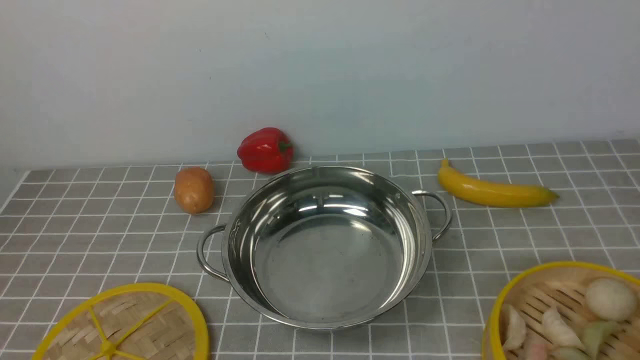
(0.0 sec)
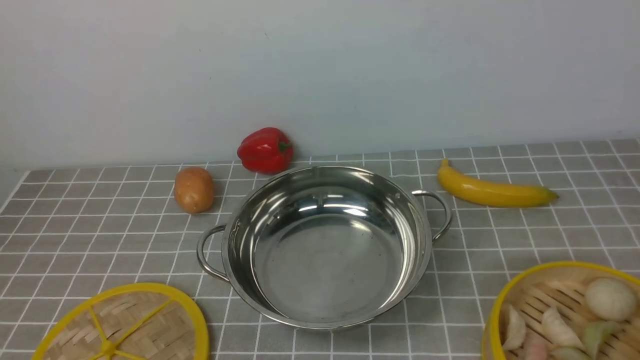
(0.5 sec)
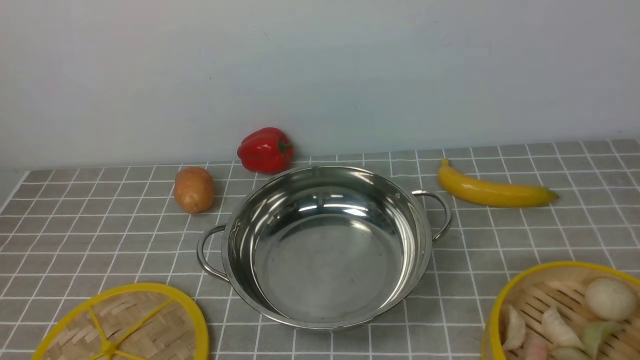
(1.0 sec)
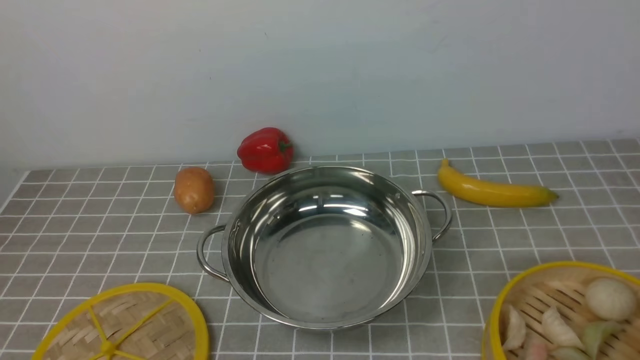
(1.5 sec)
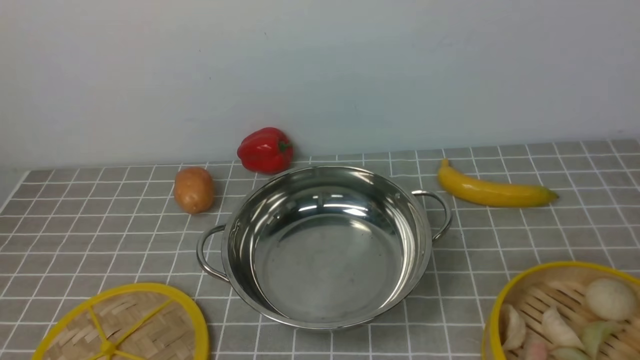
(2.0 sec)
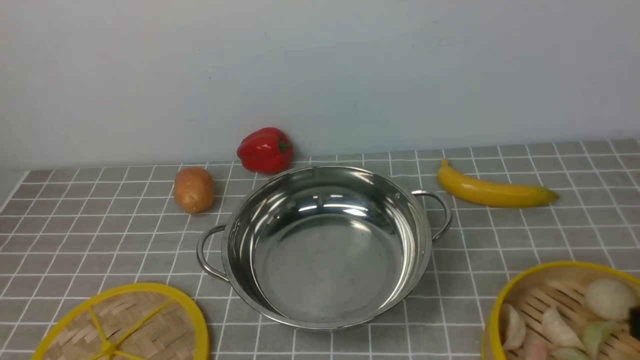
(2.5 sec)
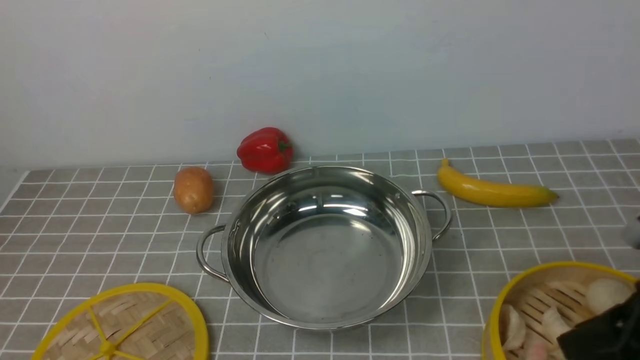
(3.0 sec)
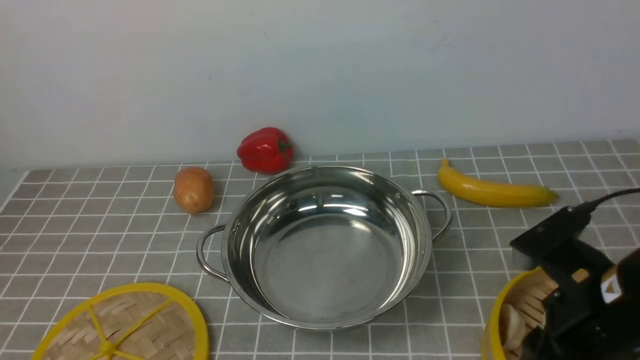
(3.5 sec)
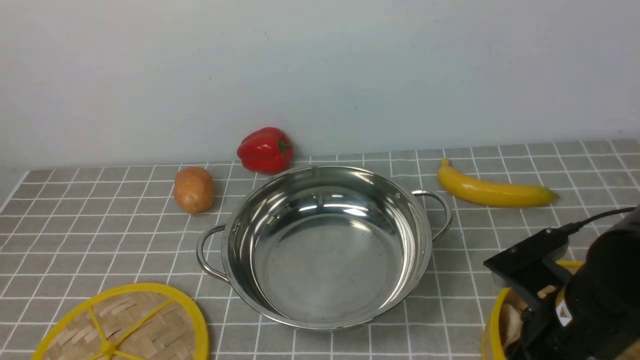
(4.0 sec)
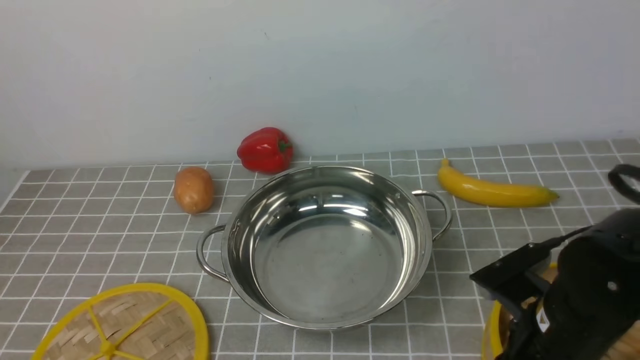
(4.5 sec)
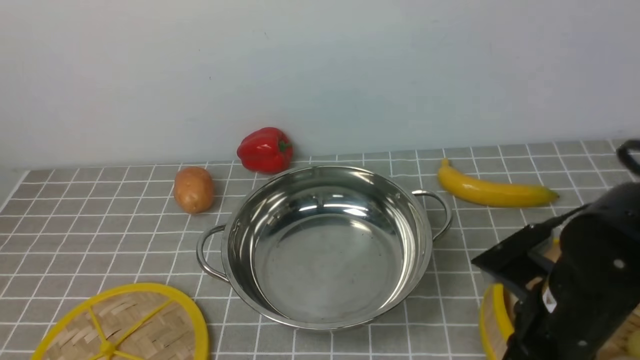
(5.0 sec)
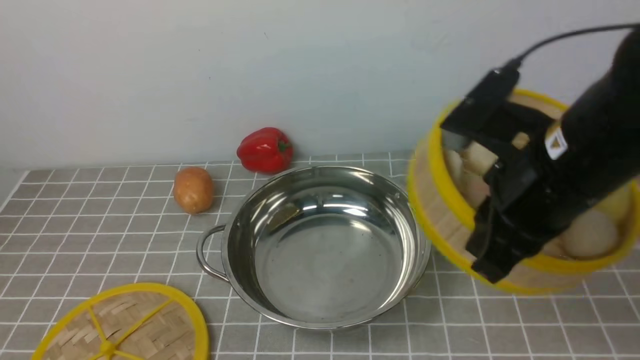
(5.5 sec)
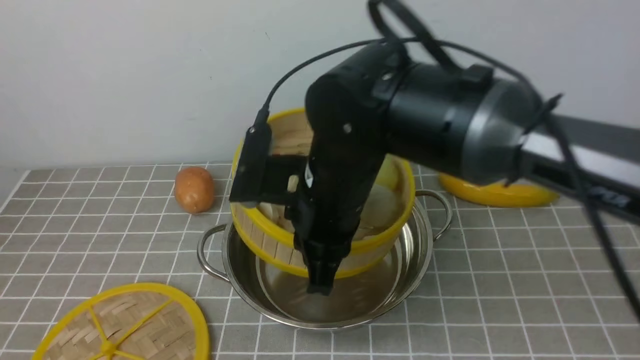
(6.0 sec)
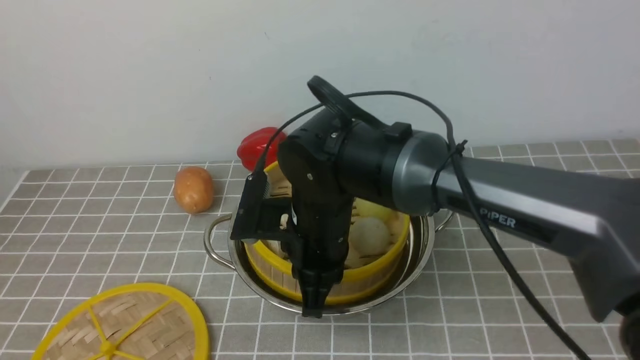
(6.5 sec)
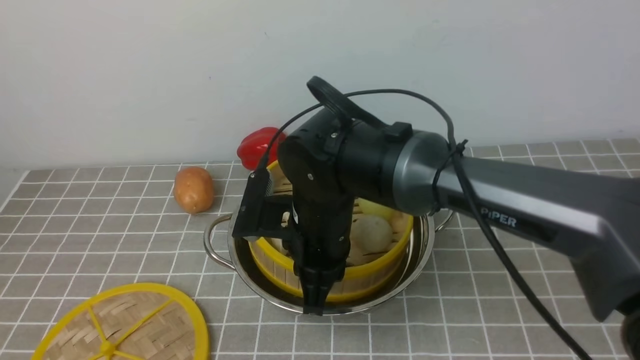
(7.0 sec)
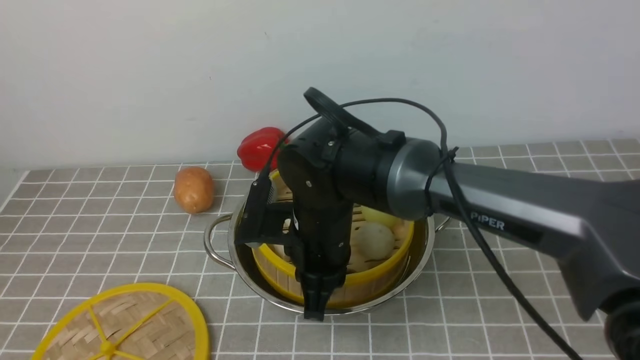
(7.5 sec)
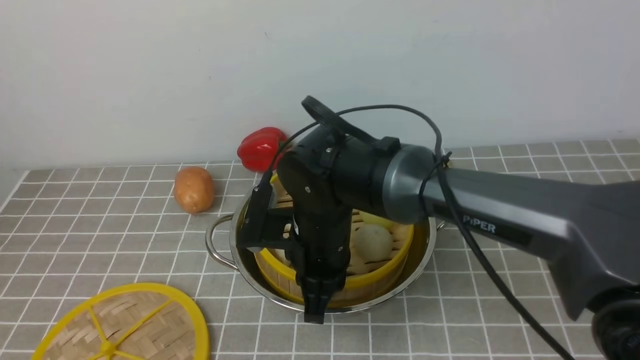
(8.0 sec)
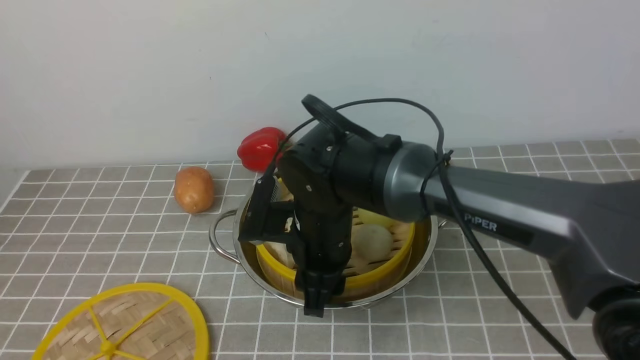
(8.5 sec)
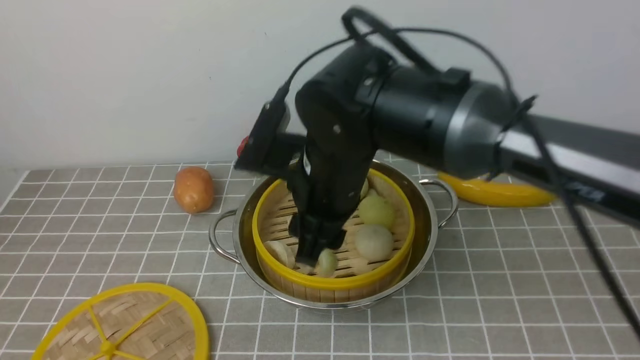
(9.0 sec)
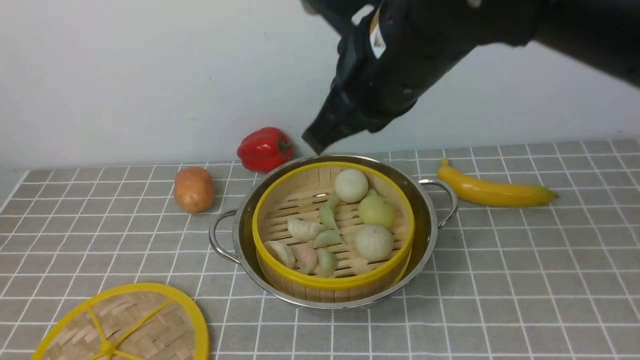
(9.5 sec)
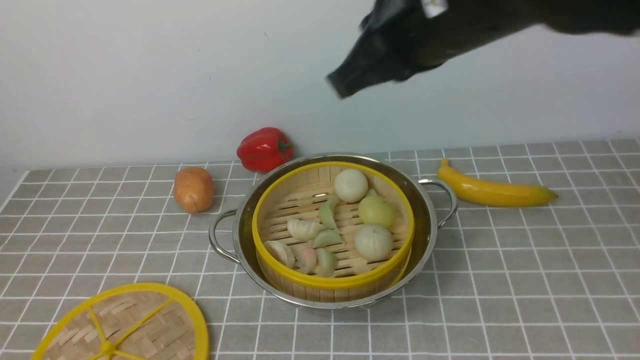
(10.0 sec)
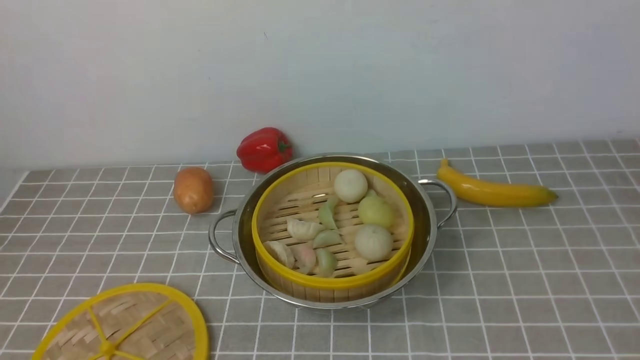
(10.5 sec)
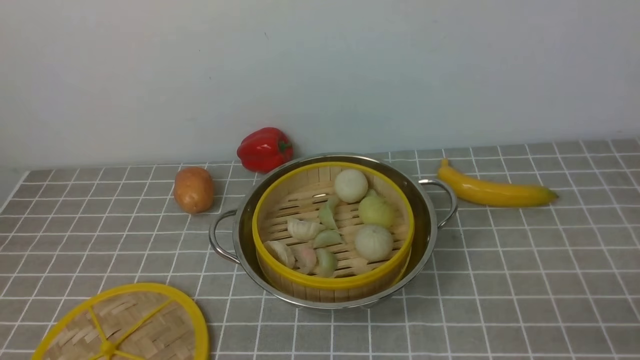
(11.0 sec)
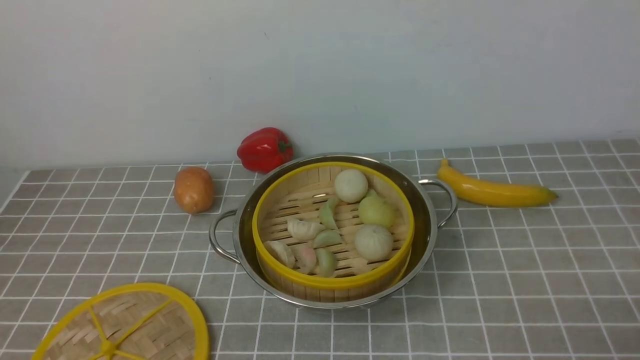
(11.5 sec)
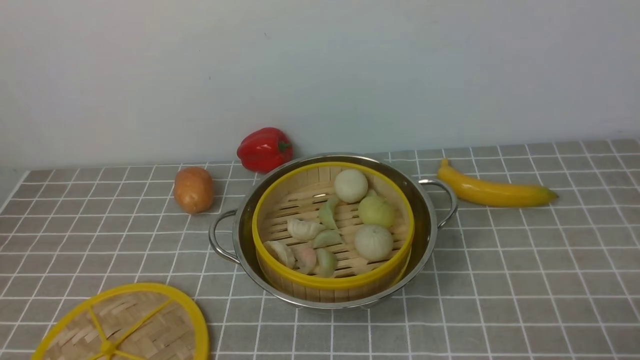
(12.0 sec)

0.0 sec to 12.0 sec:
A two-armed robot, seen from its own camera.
Task of the whole recording: place the steamer in the pot on the grey tablecloth, and put the lid on the steamer.
Step, 0.0 sec to 5.0 sec: use the right arm to lift the steamer closest to it.
Step, 5.5 sec to 8.5 sec: use the right arm to put the steamer into the iron steamer pot in the middle.
2.0 sec to 4.0 sec: The right gripper travels forward, to the left and downward by some 20 cm.
4.0 sec to 6.0 sec: The right gripper goes approximately 20 cm to the left, forward and upward, and closes up.
6.0 sec to 8.0 sec: The right gripper moves downward, some 10 cm.
8.0 sec to 10.0 sec: The right gripper travels upward and to the right by roughly 25 cm, and opens, then closes once more.
10.0 sec to 12.0 sec: The right gripper heads to the right, downward and backward, covering some 40 cm, and opens up.

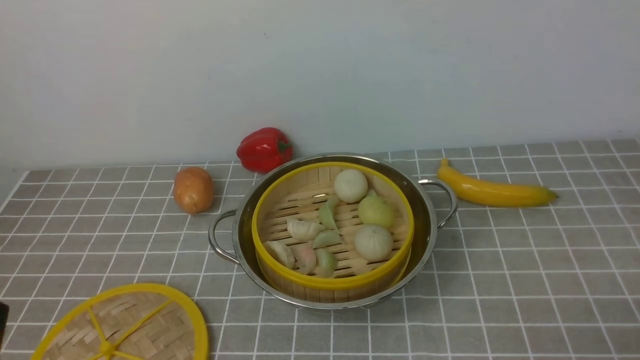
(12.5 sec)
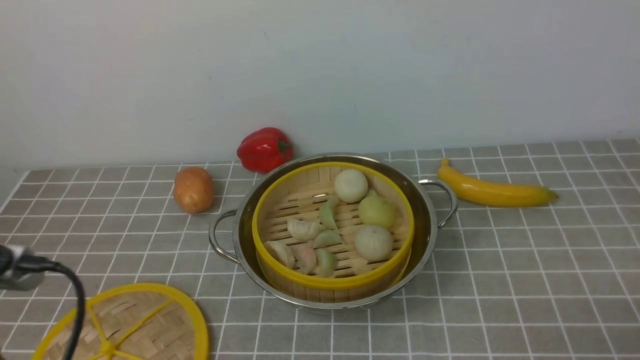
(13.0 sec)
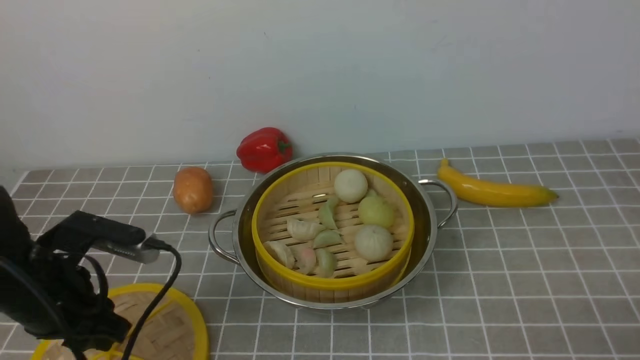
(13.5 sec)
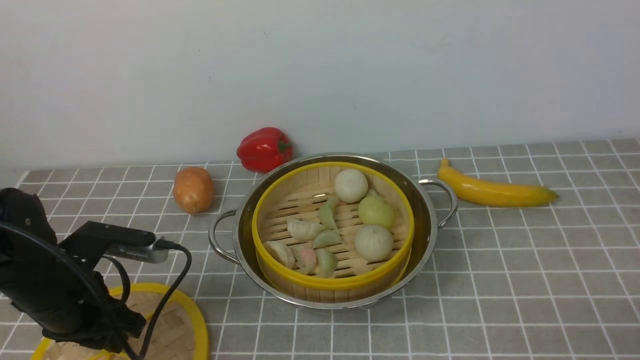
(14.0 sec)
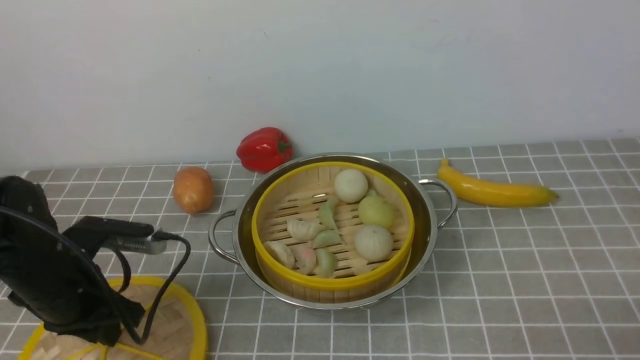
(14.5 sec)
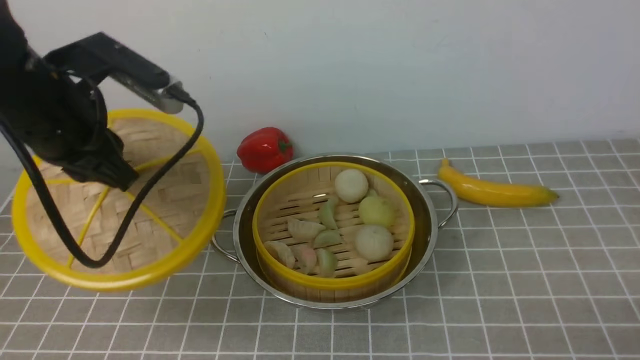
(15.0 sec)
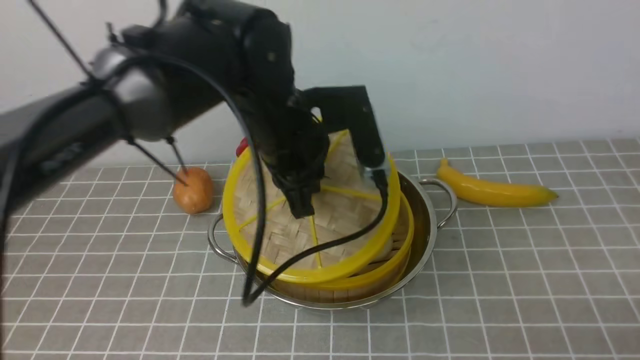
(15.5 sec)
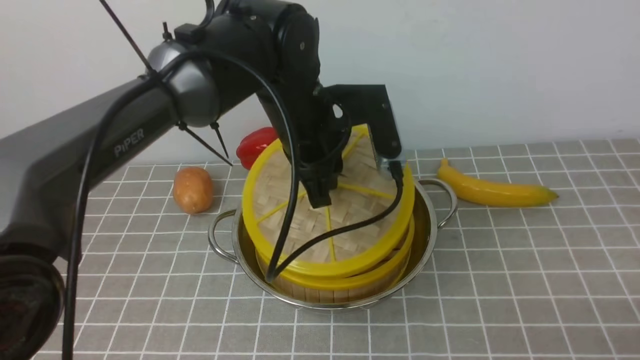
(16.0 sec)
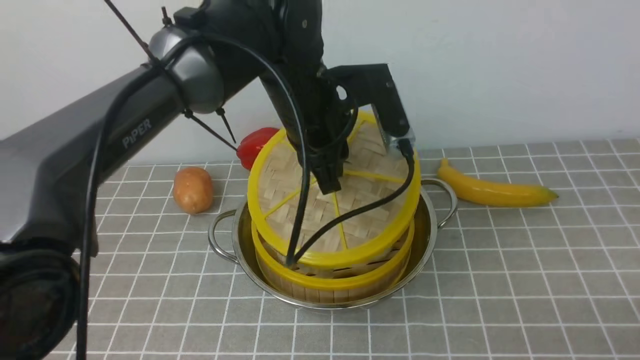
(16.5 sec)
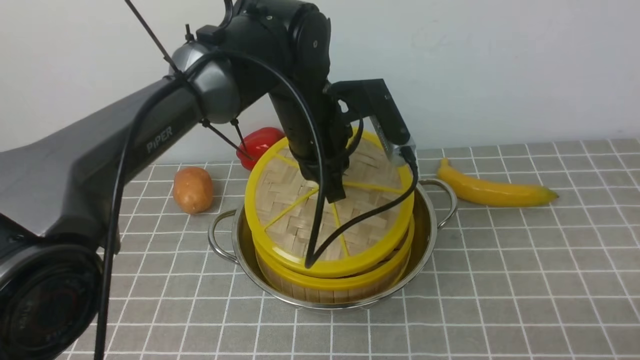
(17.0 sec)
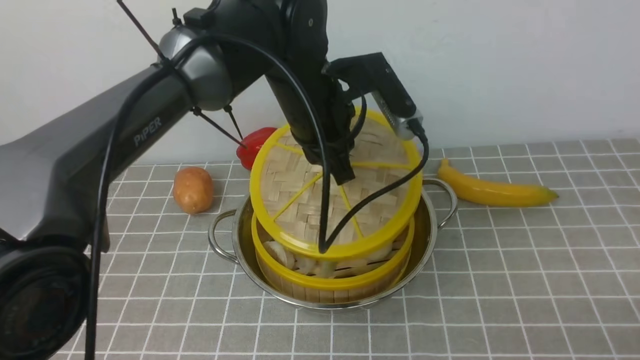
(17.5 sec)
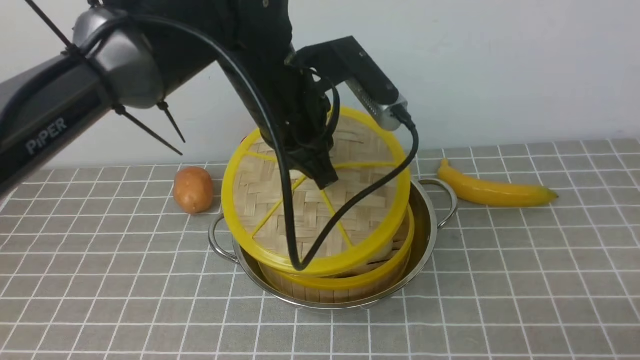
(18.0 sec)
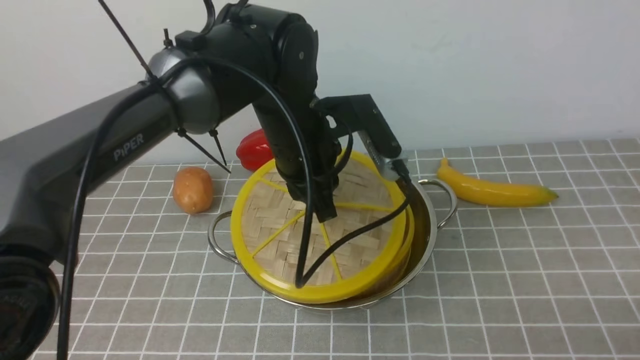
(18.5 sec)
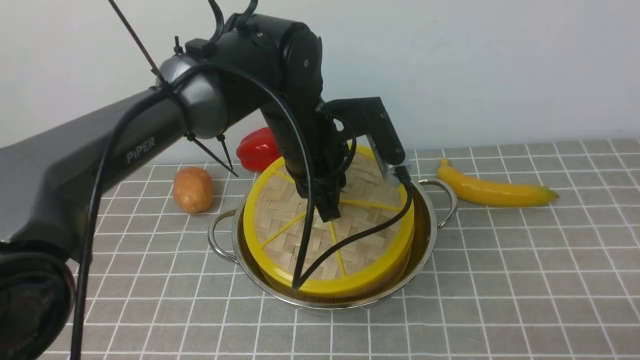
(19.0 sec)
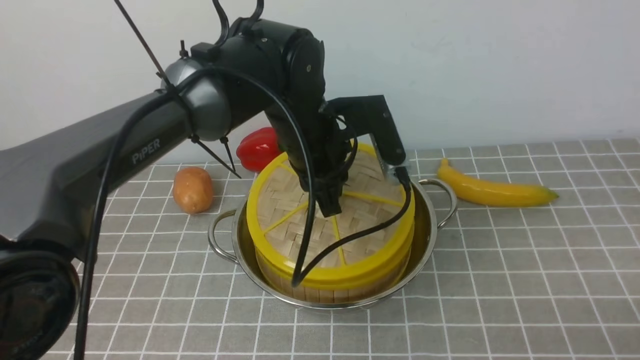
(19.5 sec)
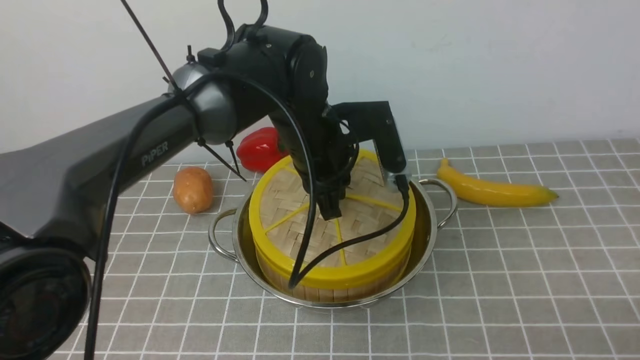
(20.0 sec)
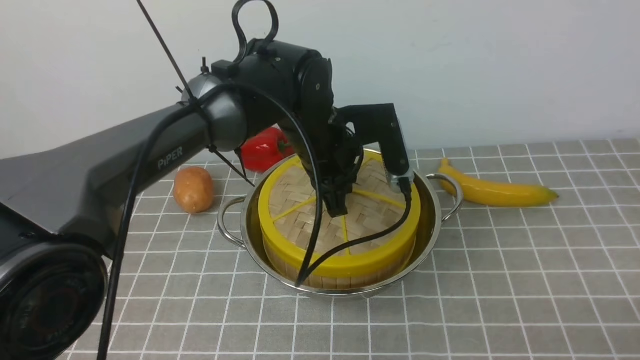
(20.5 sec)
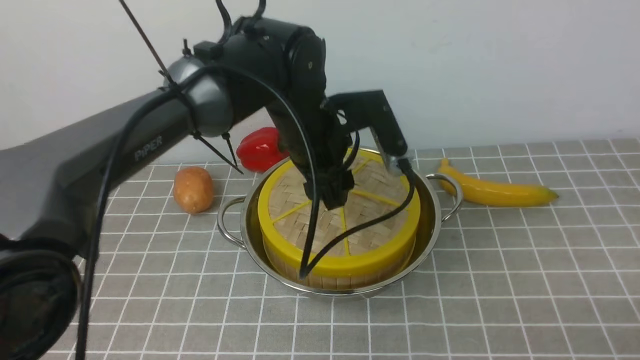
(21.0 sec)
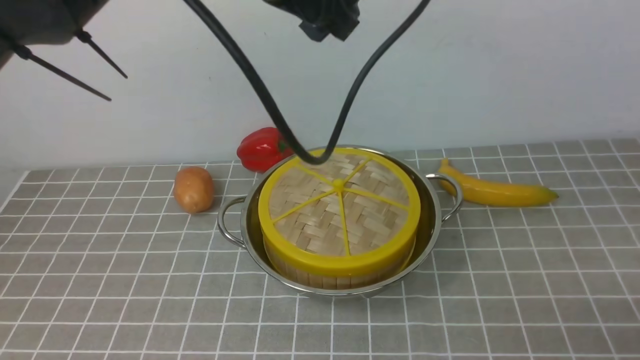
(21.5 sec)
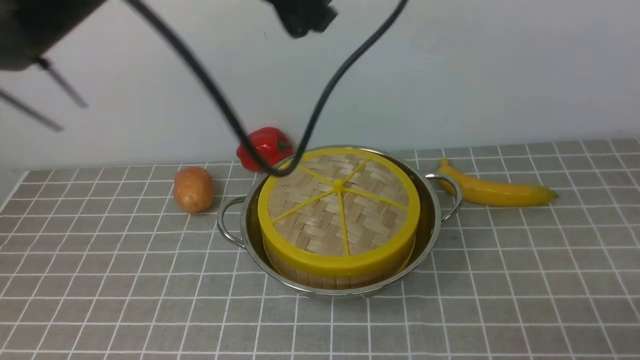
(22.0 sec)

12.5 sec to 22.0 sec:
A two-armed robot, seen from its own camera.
Task of the whole recording: place the steamer in the pot on the grey tablecloth, and put the lid on the steamer.
Step, 12.5 sec to 14.5 sec: use the left arm to lift the lid of the steamer.
Step, 15.0 sec to 21.0 sec: use the left arm to place the steamer lid on the steamer.
12.5 sec to 14.5 sec: The left gripper heads forward, covering roughly 20 cm.
14.5 sec to 16.5 sec: The left gripper travels to the right, forward and upward by roughly 30 cm.
18.0 sec to 20.0 sec: The left gripper moves downward, approximately 5 cm.
20.0 sec to 22.0 sec: The left gripper is displaced upward by about 20 cm, and opens up.
